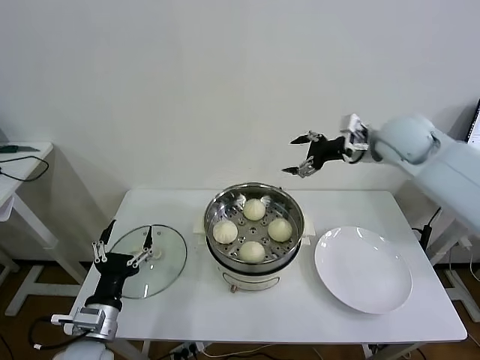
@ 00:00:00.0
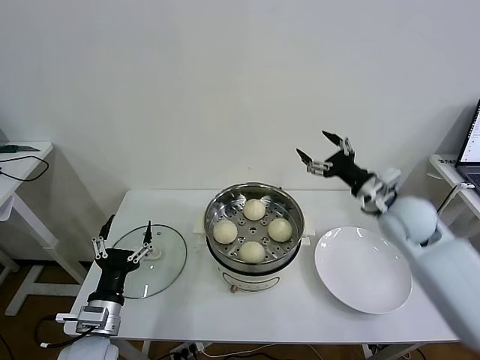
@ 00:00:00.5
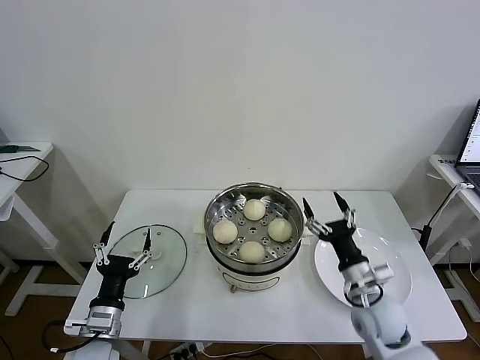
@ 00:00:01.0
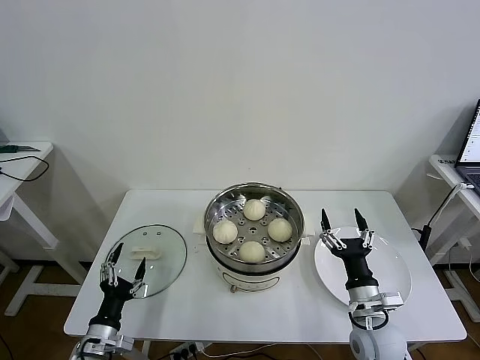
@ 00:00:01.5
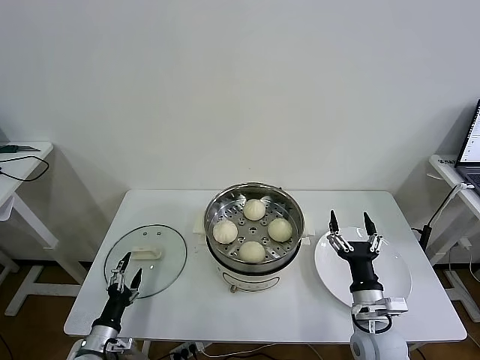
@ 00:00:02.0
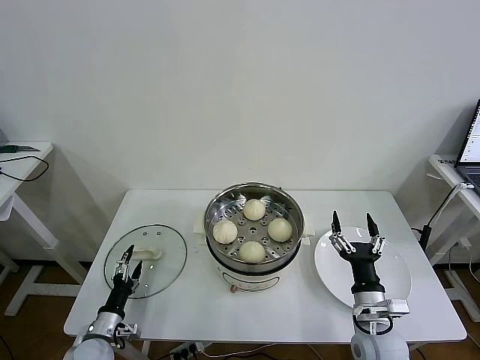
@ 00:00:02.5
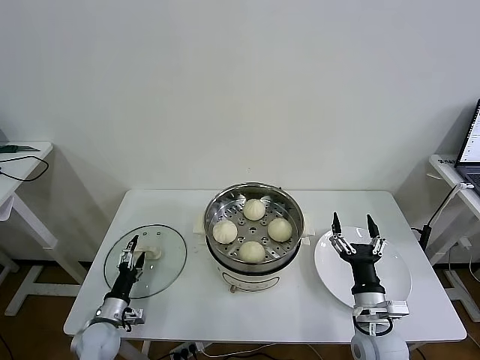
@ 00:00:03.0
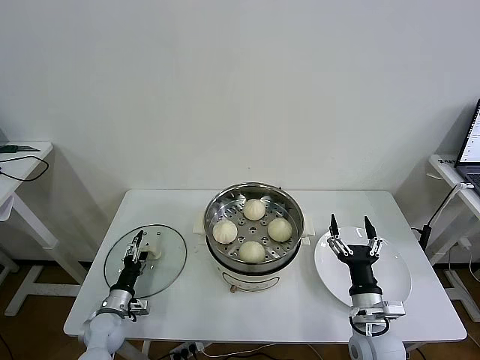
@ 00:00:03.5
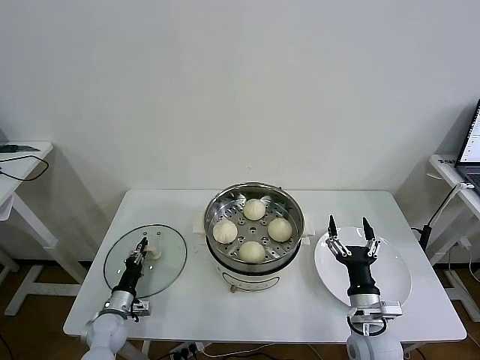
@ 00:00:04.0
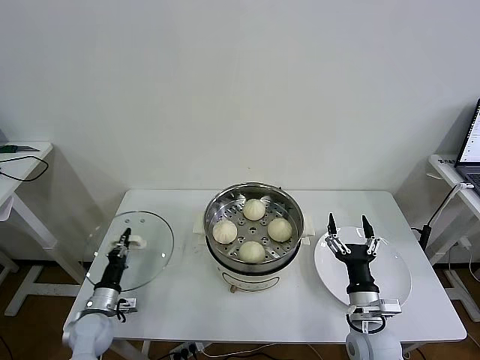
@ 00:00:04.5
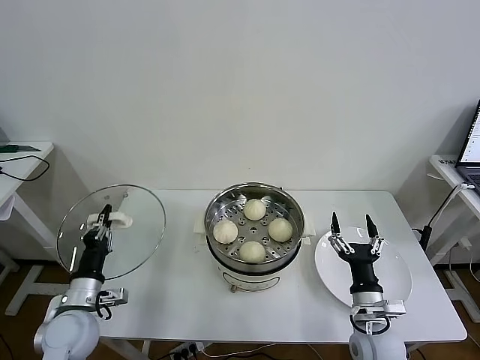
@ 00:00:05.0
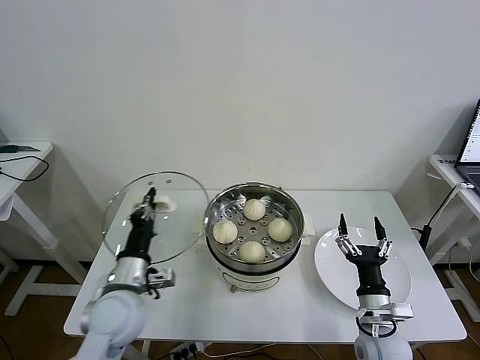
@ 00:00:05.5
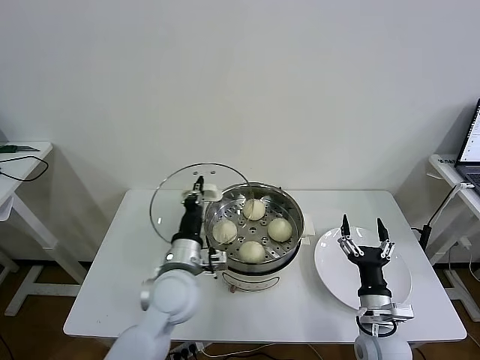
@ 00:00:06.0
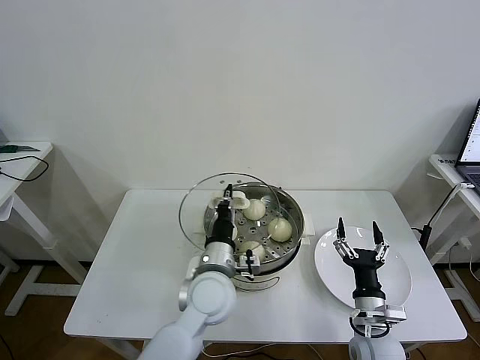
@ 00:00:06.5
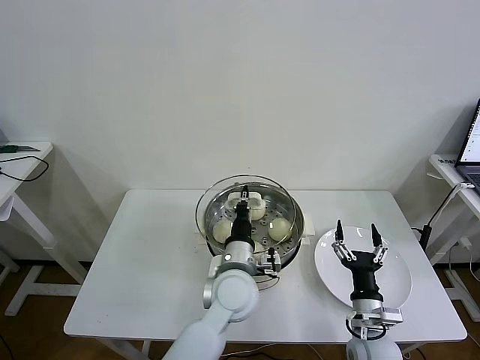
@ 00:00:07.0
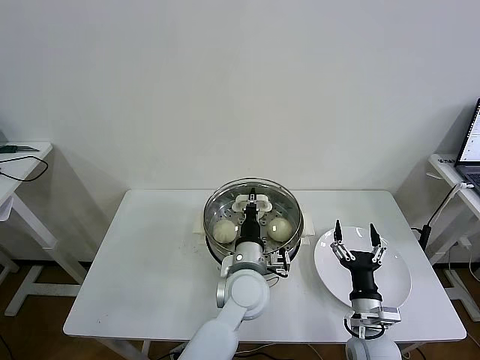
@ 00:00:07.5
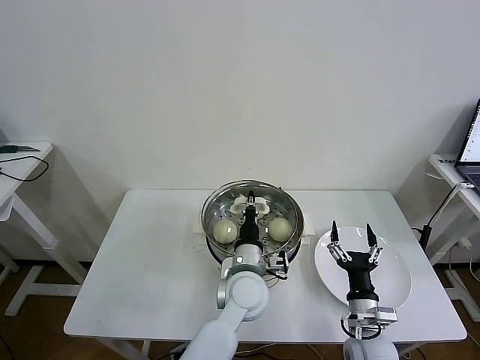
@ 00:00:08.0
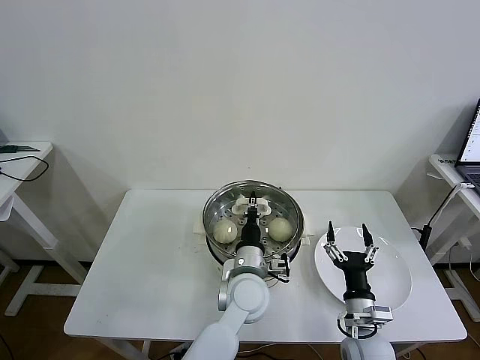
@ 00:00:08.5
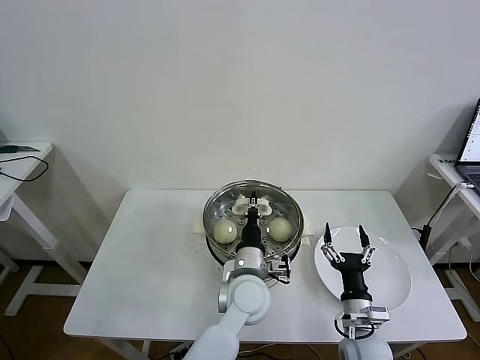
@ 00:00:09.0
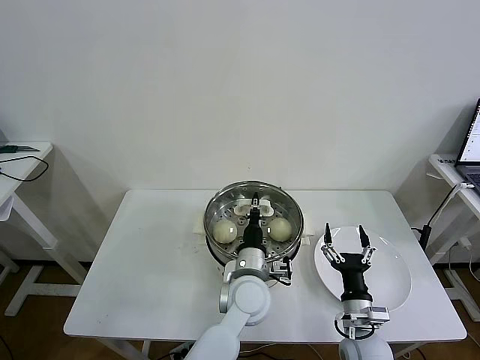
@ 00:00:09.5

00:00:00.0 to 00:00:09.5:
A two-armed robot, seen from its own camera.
Task of the whole recording: take steamed baozi put them in steamer then cover it.
Step, 00:00:00.0 to 00:00:04.0: Grasp the pot lid with left gripper.
00:00:00.0 to 00:00:02.0: The left gripper shifts some 15 cm downward and to the left. The right gripper travels downward and backward by some 40 cm.
00:00:02.0 to 00:00:04.0: The left gripper shifts approximately 10 cm forward and downward, and closes.
00:00:04.0 to 00:00:05.5: The left gripper travels upward and to the right by approximately 25 cm.
00:00:05.5 to 00:00:07.5: The left gripper travels to the right by some 25 cm.
00:00:07.5 to 00:00:09.5: The grippers make only small movements.

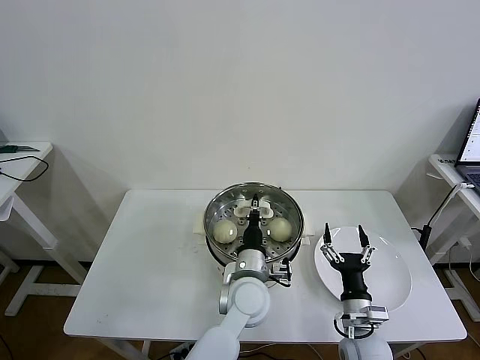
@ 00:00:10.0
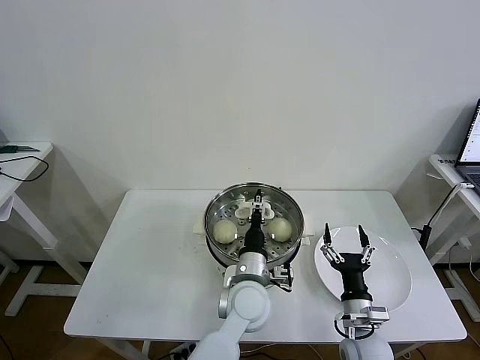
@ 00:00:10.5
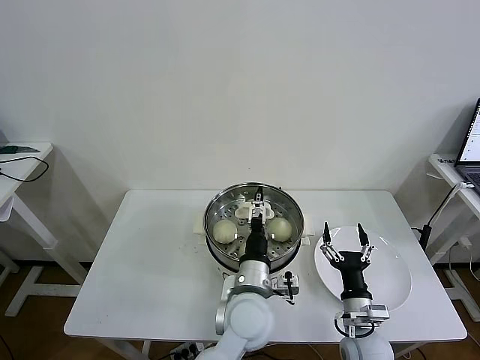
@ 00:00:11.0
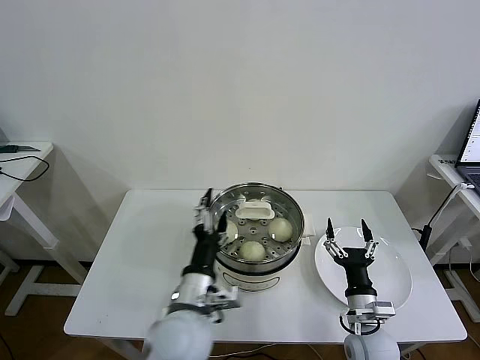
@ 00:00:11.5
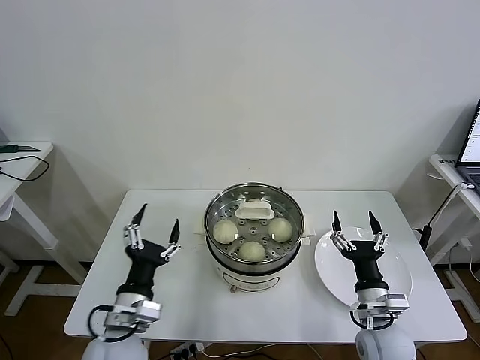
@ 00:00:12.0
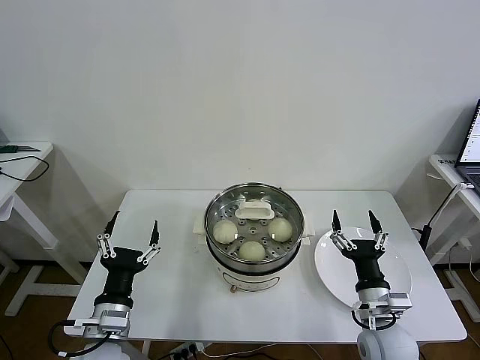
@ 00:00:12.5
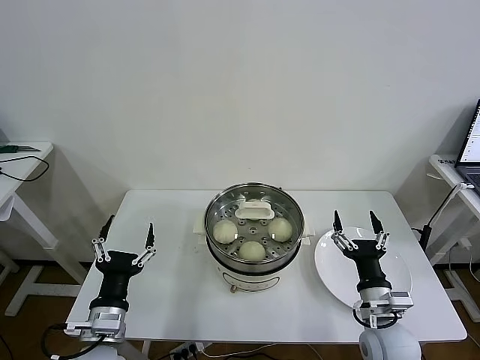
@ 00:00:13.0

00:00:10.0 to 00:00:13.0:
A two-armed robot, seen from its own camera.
Task of the whole recording: take steamed baozi put them in steamer then cover it.
00:00:10.0 to 00:00:11.5: The left gripper goes some 15 cm to the left, backward and upward, and opens up.
00:00:11.5 to 00:00:13.0: The right gripper travels upward by some 5 cm, while the left gripper travels to the left by roughly 15 cm.

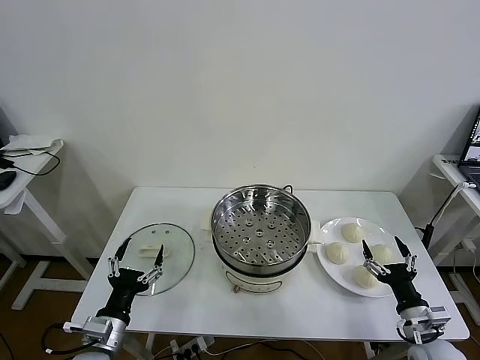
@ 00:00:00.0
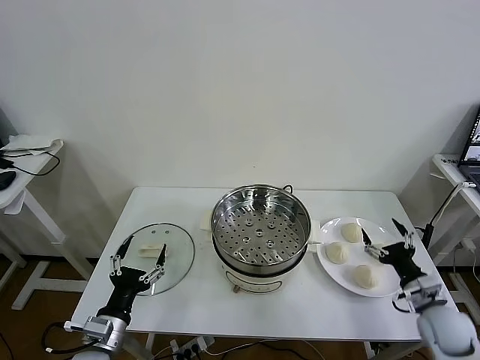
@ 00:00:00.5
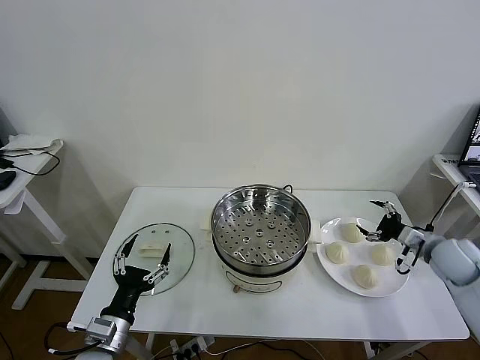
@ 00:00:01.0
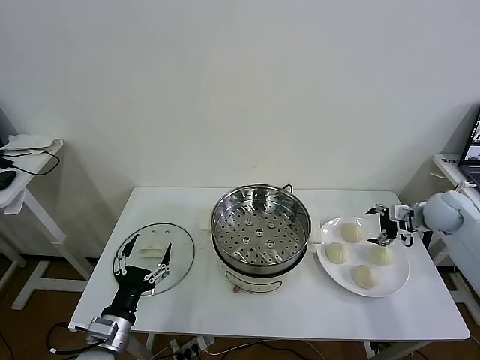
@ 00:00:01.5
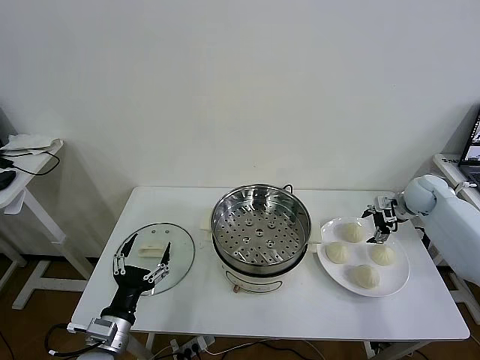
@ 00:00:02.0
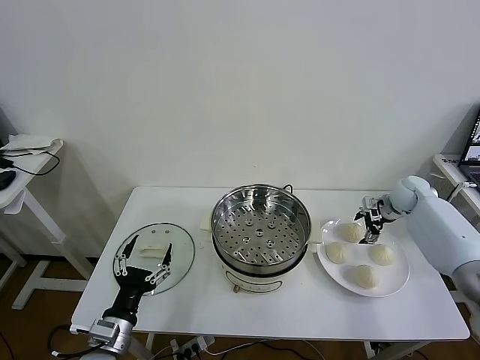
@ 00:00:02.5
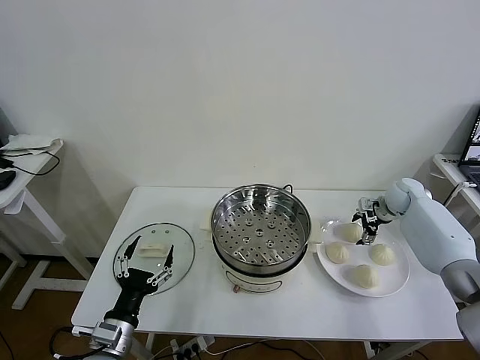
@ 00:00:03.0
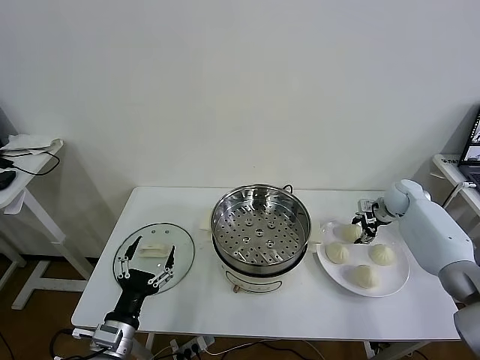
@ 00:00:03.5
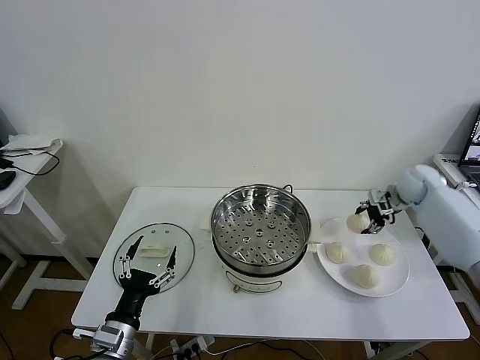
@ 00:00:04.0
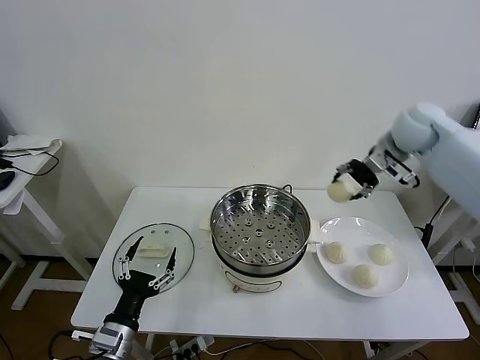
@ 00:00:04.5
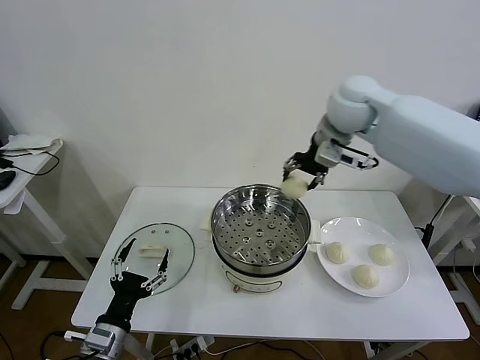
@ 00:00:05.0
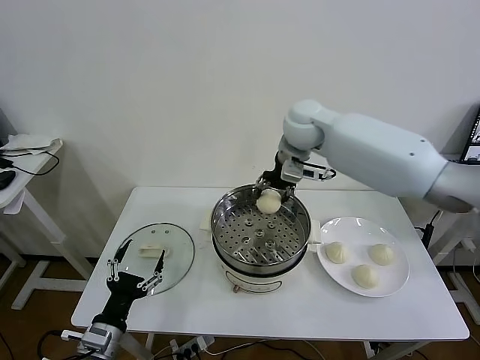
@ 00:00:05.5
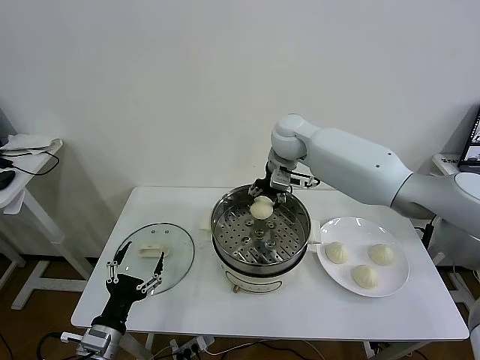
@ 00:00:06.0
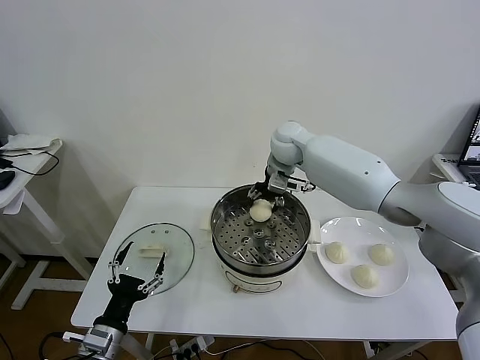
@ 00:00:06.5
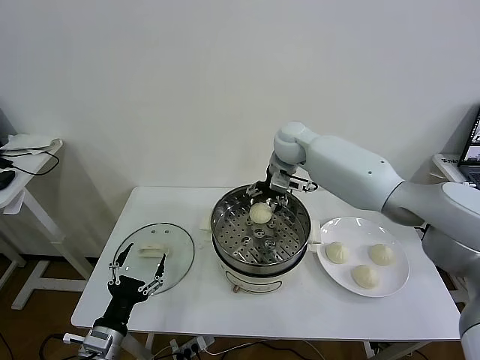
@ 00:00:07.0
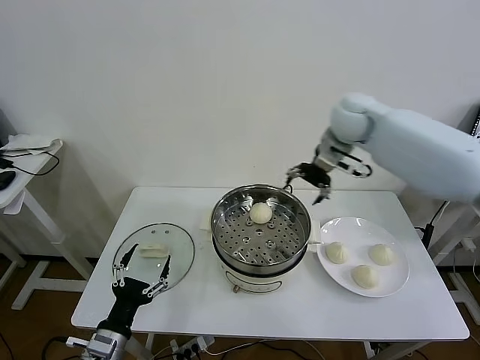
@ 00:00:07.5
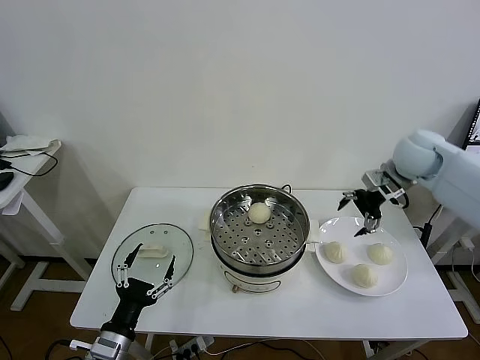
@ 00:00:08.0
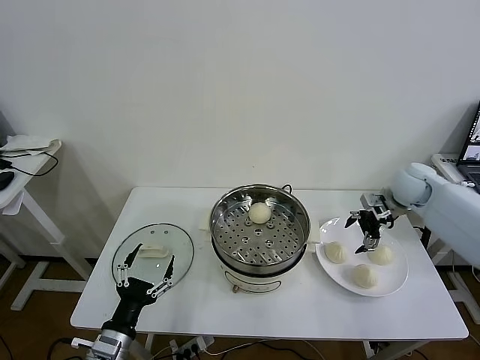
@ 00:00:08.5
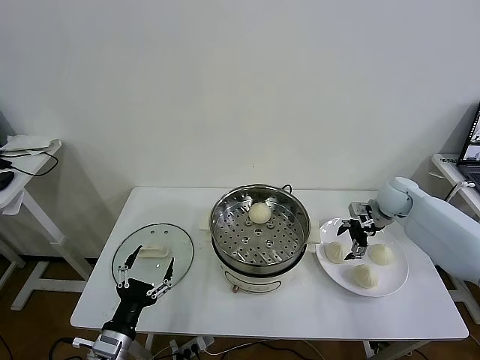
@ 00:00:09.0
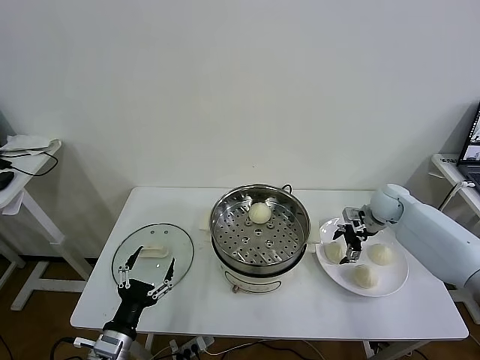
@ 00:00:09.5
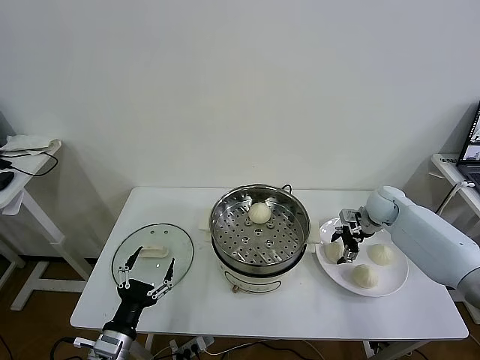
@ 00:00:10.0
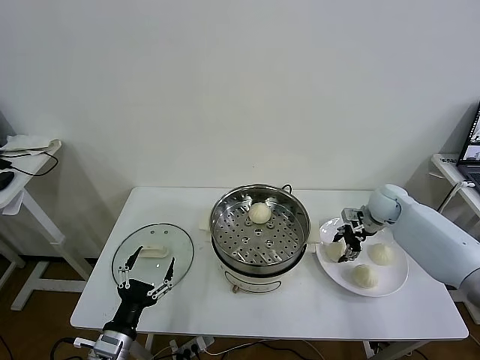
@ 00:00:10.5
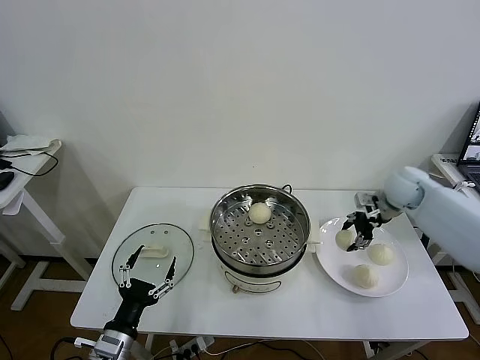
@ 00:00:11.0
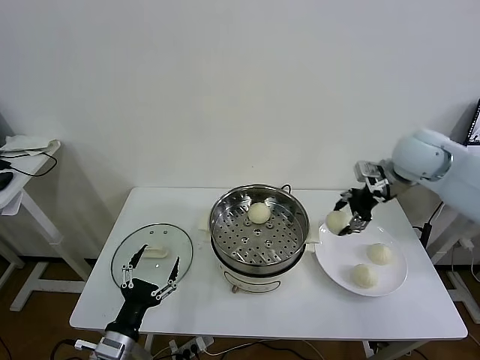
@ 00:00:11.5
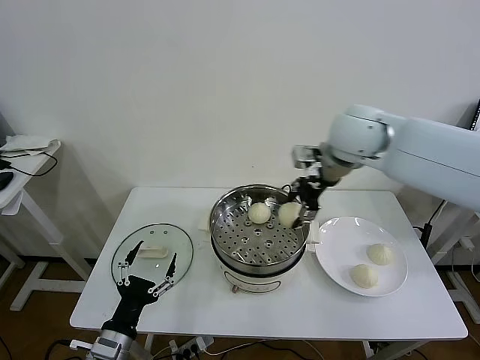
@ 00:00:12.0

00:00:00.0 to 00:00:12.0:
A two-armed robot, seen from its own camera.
Task of the whole recording: take steamed baozi put them in steamer then cover it.
Step, 00:00:00.0 to 00:00:03.5: Grasp the baozi in the plate with right gripper.
Step, 00:00:04.0 to 00:00:06.5: Place the baozi on the steamer with right gripper.
Step, 00:00:07.0 to 00:00:10.0: Grasp the baozi in the plate with right gripper.
00:00:02.0 to 00:00:04.0: The right gripper moves upward, some 5 cm, and closes up.
00:00:04.0 to 00:00:06.0: The right gripper shifts about 35 cm to the left.
00:00:06.0 to 00:00:08.0: The right gripper shifts approximately 25 cm to the right, and opens.
00:00:08.0 to 00:00:10.0: The right gripper shifts roughly 15 cm downward, and closes.
00:00:10.0 to 00:00:12.0: The right gripper is displaced upward and to the left by roughly 35 cm, and closes its fingers.
